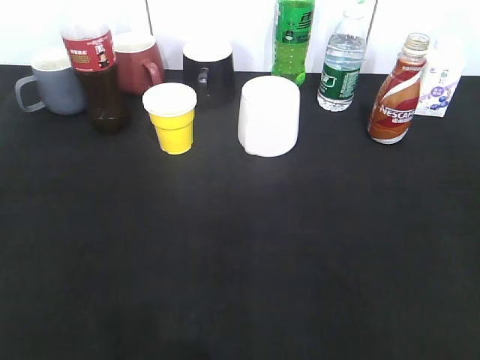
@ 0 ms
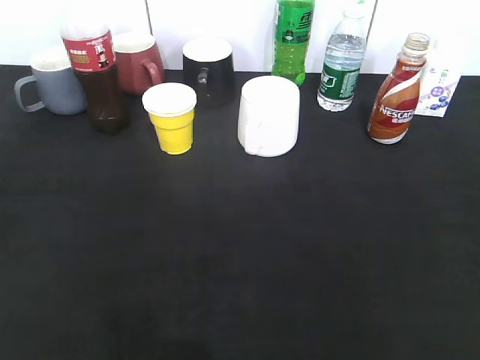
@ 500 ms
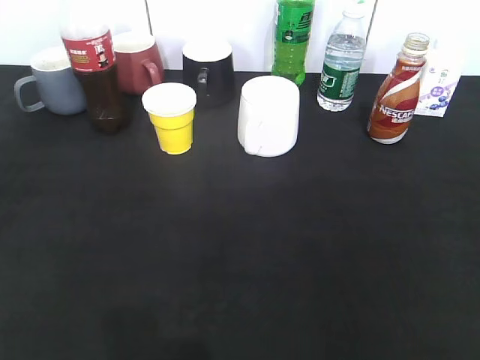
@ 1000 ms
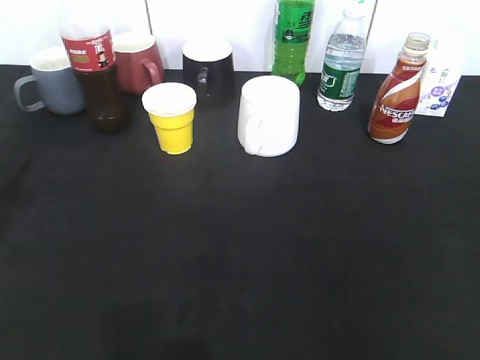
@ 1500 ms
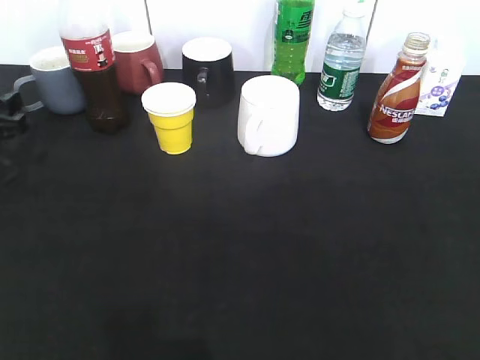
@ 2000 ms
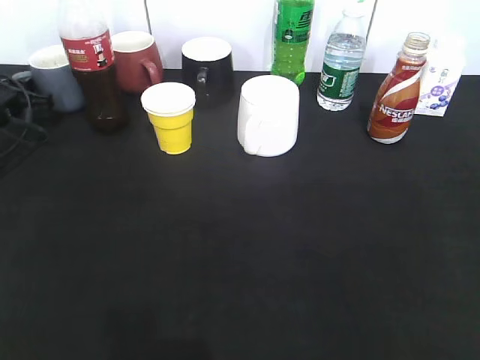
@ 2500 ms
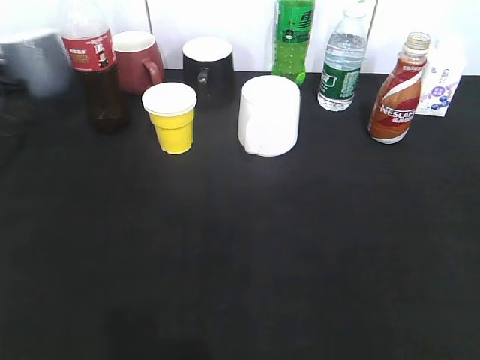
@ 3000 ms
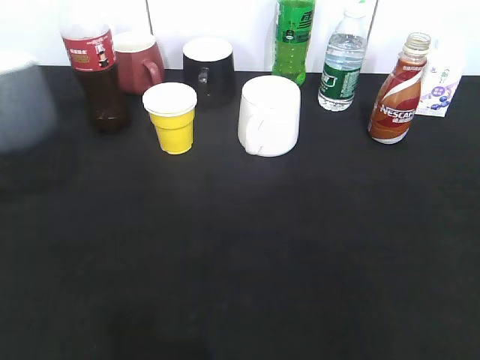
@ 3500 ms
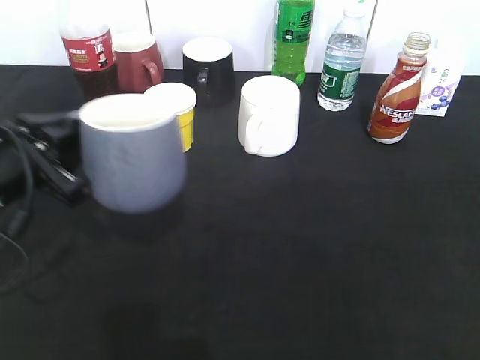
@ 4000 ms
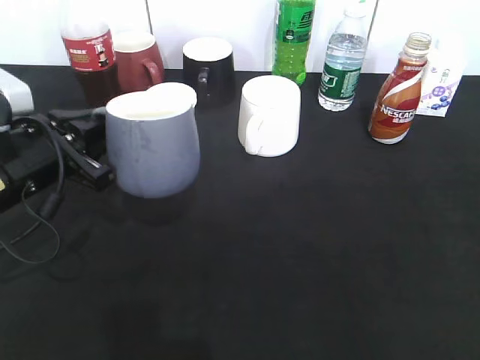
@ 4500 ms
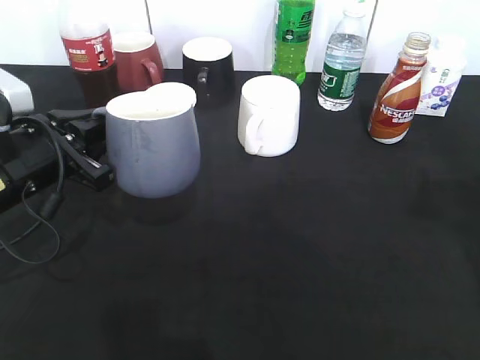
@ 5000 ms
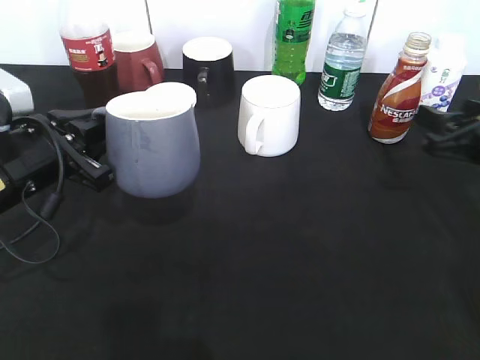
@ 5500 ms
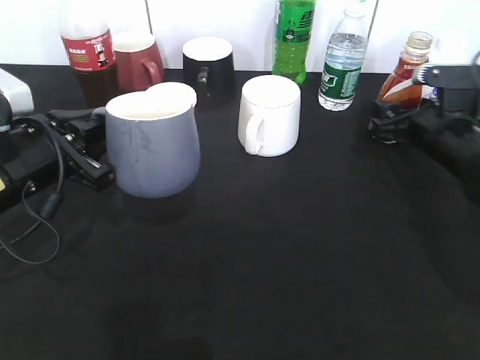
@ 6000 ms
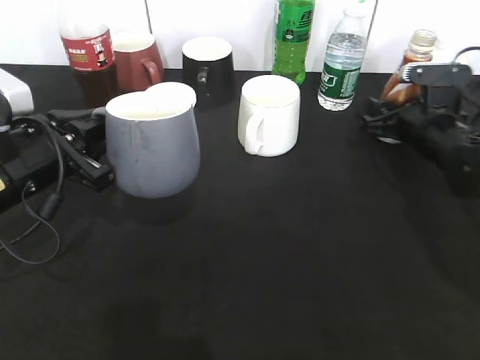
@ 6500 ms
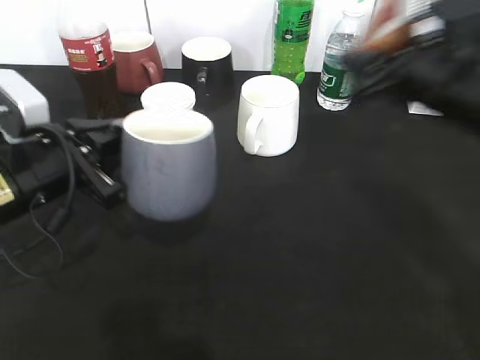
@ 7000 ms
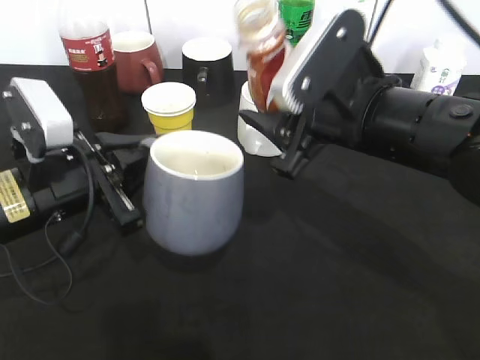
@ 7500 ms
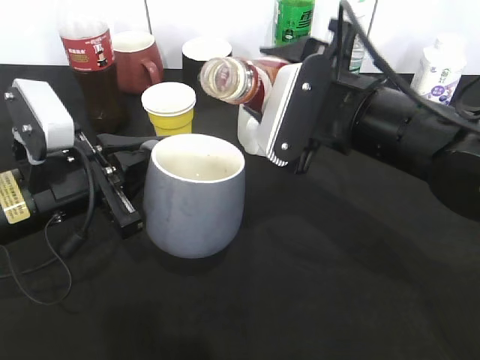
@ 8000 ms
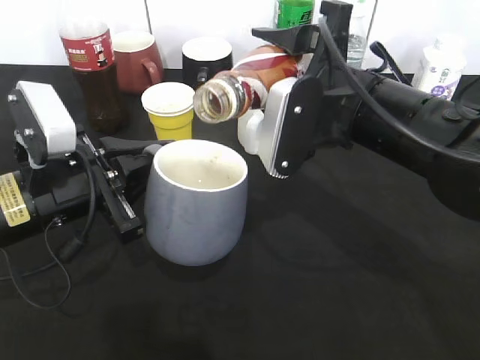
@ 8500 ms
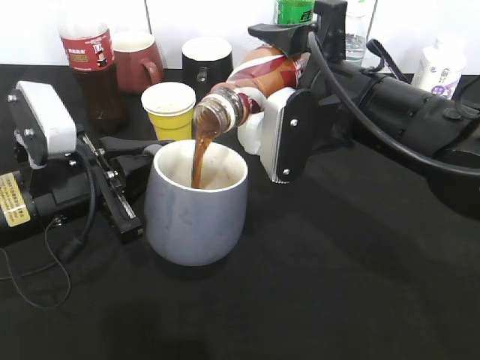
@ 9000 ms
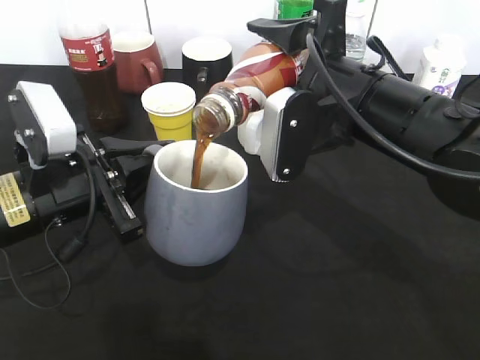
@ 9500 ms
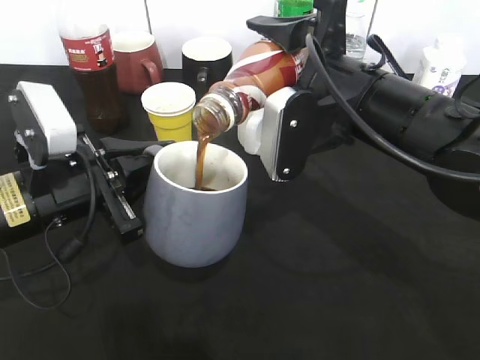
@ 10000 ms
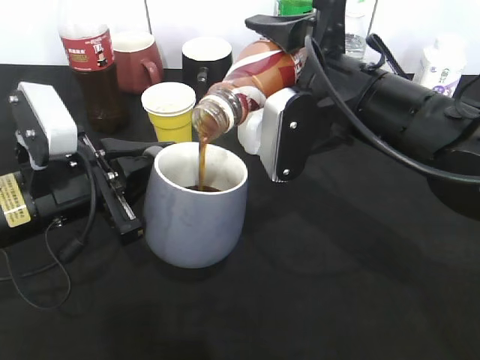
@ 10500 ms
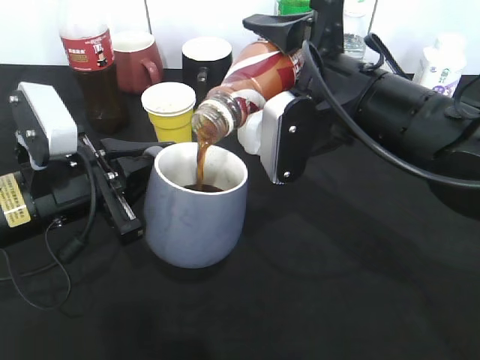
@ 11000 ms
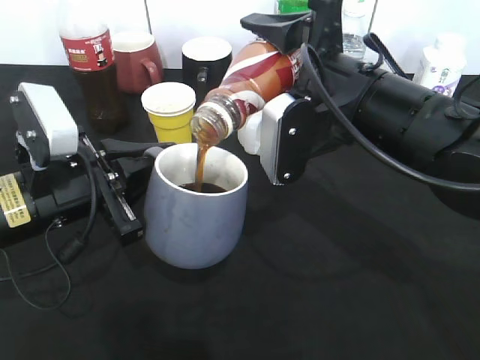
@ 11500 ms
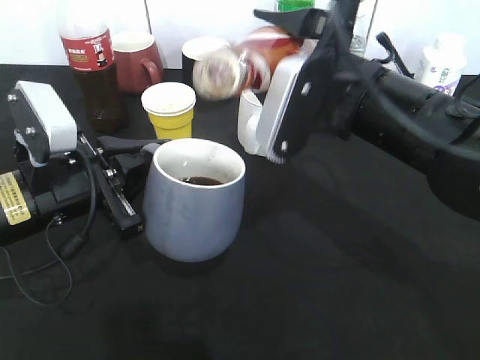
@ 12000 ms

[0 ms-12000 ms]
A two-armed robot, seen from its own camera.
Step, 0 ms to 2500 ms: Grasp the grey cup with left gripper.
Step, 3000 ms to 5000 ms: Lift the grey cup with left gripper.
Step, 5500 ms to 6500 ms: Grasp the bottle with coffee with right gripper.
Step, 7000 ms to 12000 ms: Pour the coffee from bottle to cup with right gripper.
0 ms to 2000 ms: The left gripper is displaced forward by roughly 35 cm.
2000 ms to 4000 ms: The left gripper heads backward and to the right, covering some 15 cm, and closes its fingers.
4000 ms to 6000 ms: The right gripper shifts about 40 cm forward and downward, and opens its fingers.
6000 ms to 8000 ms: The right gripper shifts about 20 cm to the left, upward and backward, and closes up.
10000 ms to 12000 ms: There are only small adjustments of the grippers.

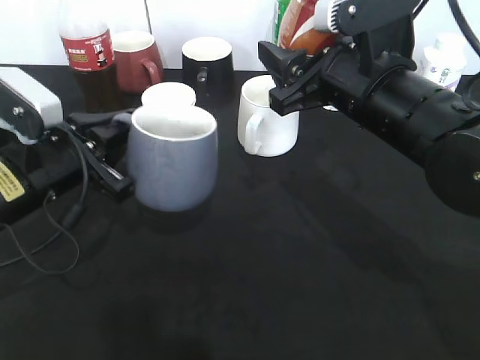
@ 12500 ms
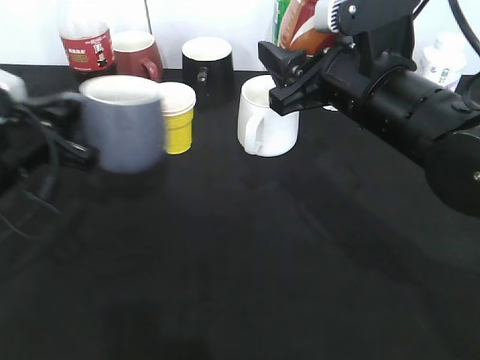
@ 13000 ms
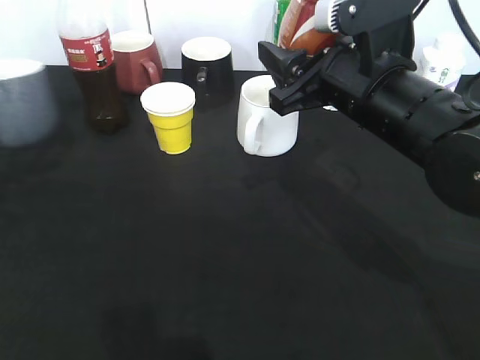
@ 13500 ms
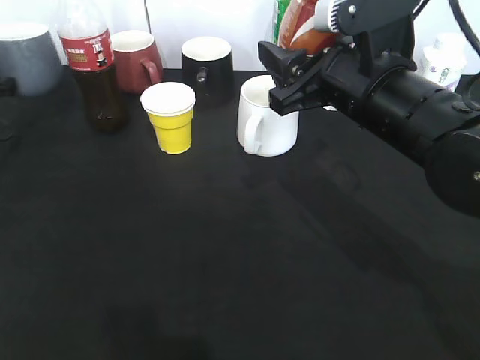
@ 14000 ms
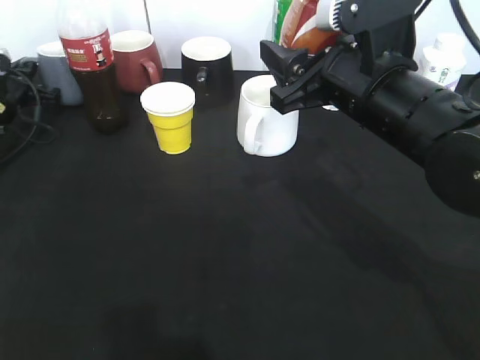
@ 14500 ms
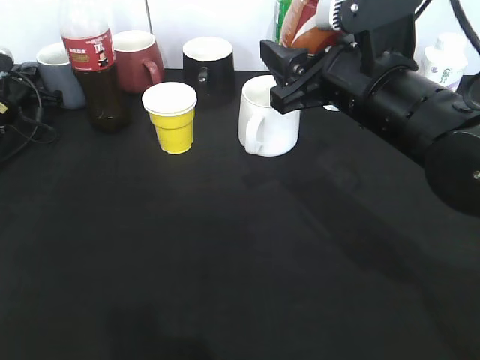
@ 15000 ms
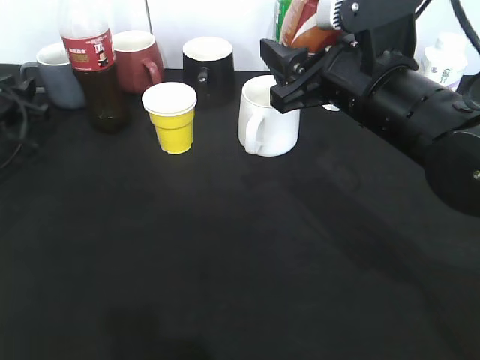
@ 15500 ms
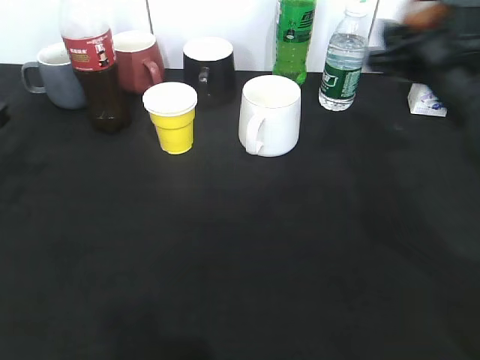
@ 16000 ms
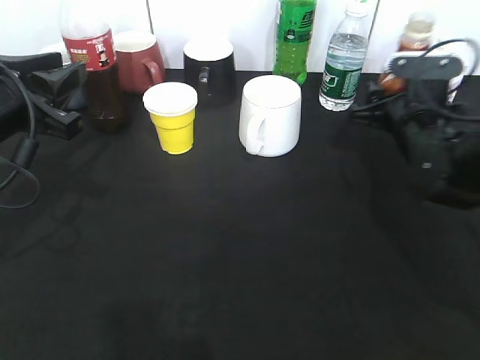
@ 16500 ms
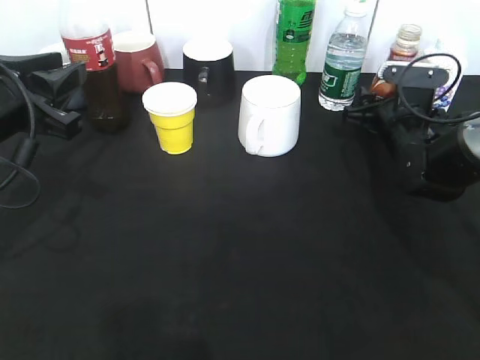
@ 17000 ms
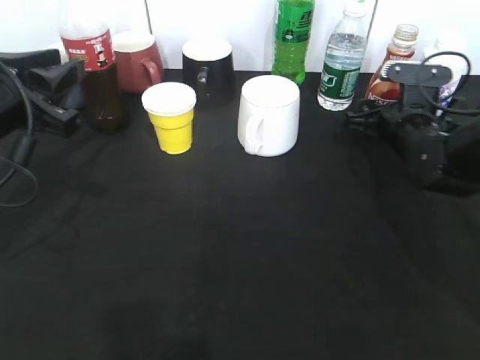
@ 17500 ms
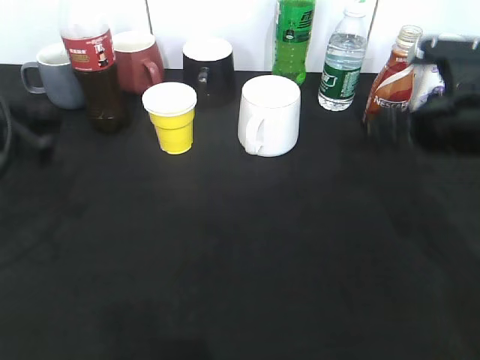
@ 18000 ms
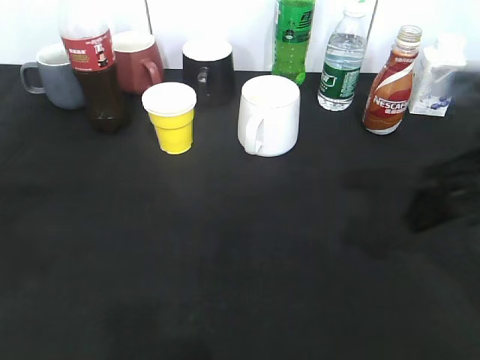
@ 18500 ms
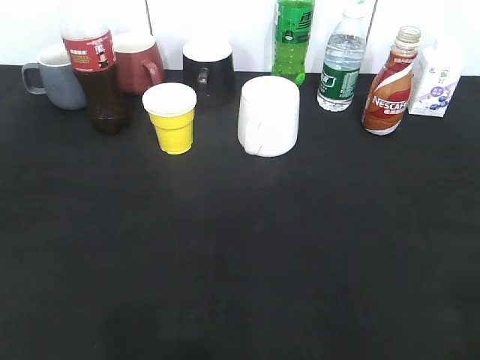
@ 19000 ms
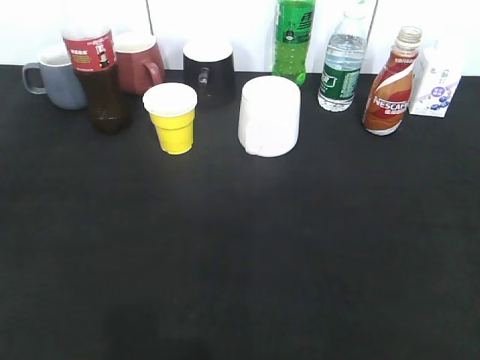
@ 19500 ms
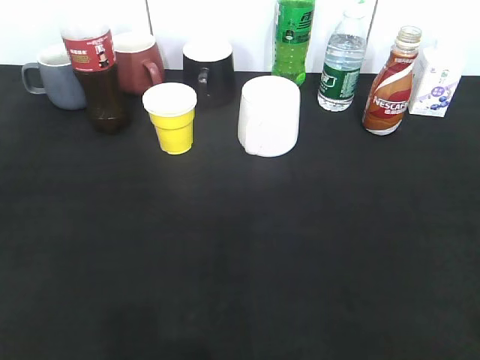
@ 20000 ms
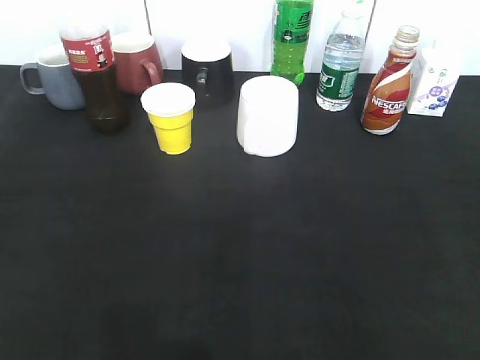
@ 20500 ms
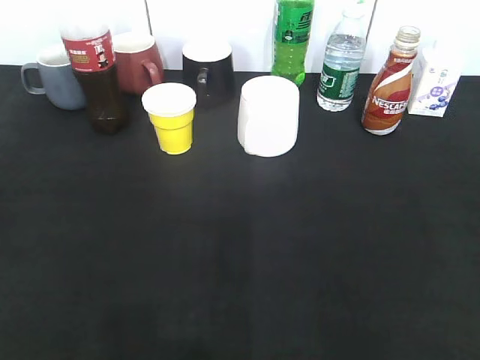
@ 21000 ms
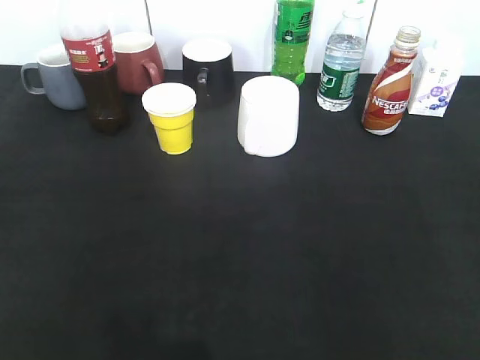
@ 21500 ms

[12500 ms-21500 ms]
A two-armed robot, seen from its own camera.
Step, 12500 ms to 15500 ms: Place the grey cup on the table with left gripper.
Step, 16000 ms to 18000 ms: Place the coffee bottle on the table with right gripper.
12500 ms to 14500 ms: The left gripper is displaced forward and to the left by some 25 cm.
14500 ms to 17000 ms: The right gripper moves downward, forward and to the right, roughly 20 cm, and opens, while the left gripper goes roughly 25 cm backward, upward and to the right, and opens up.
17000 ms to 19500 ms: The left gripper travels backward by about 20 cm, and opens its fingers, while the right gripper shifts approximately 40 cm backward and upward.
19500 ms to 21500 ms: The left gripper closes its fingers.
